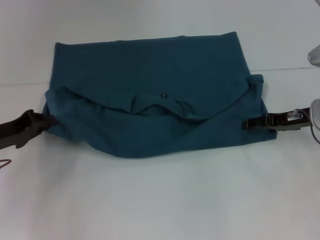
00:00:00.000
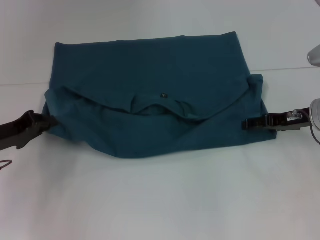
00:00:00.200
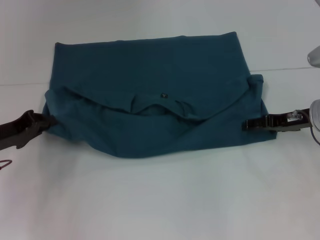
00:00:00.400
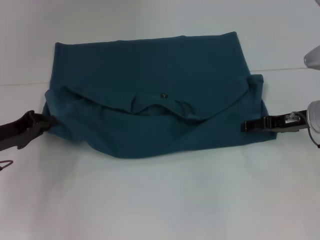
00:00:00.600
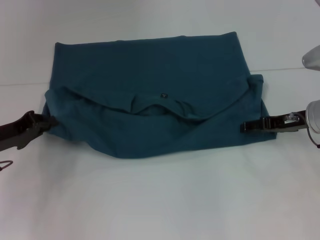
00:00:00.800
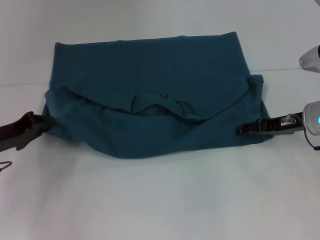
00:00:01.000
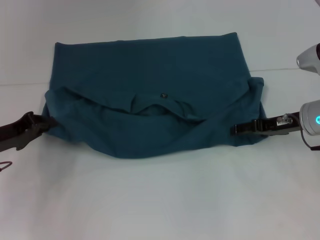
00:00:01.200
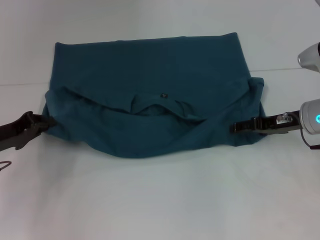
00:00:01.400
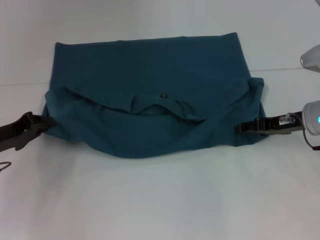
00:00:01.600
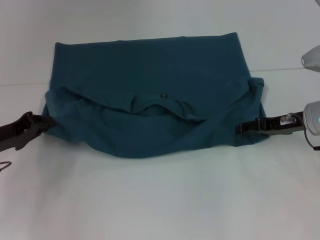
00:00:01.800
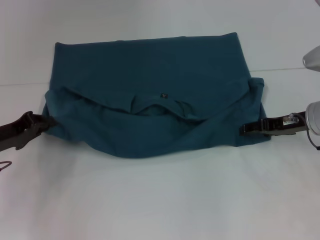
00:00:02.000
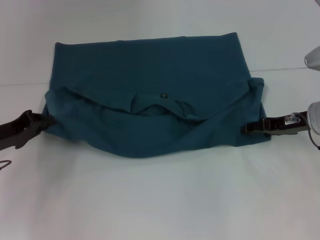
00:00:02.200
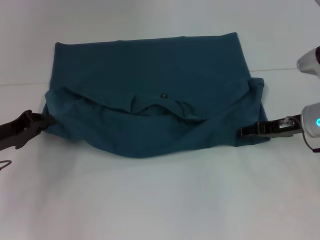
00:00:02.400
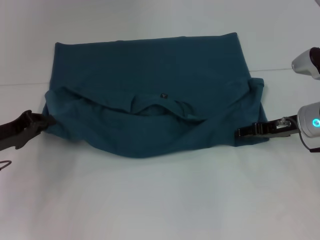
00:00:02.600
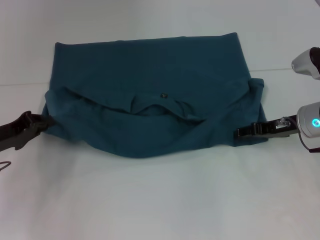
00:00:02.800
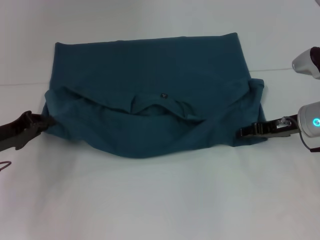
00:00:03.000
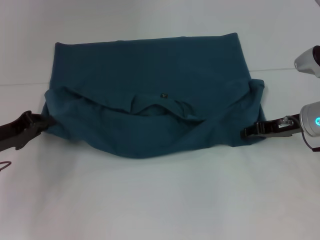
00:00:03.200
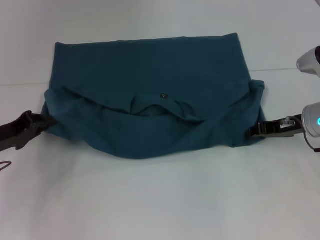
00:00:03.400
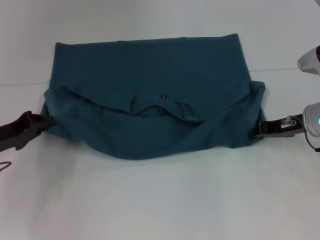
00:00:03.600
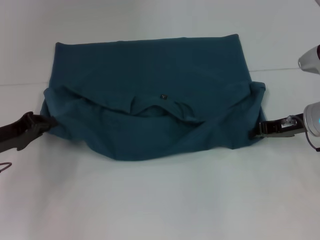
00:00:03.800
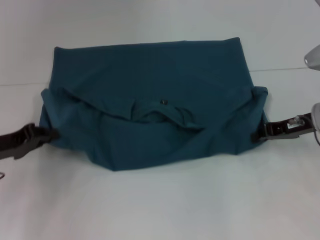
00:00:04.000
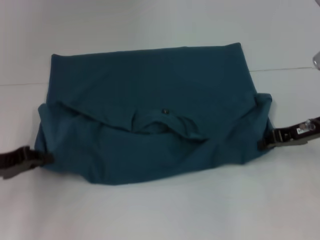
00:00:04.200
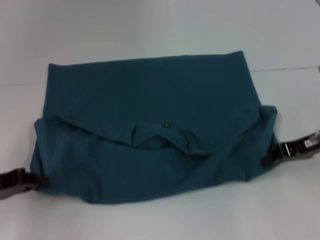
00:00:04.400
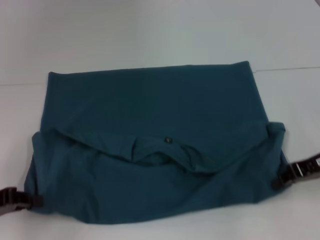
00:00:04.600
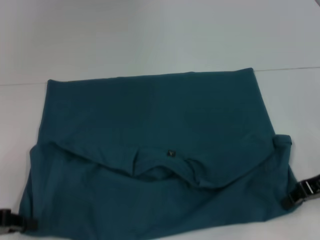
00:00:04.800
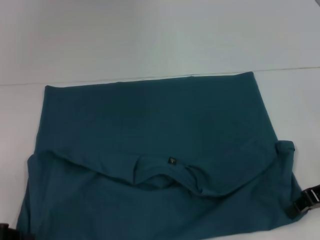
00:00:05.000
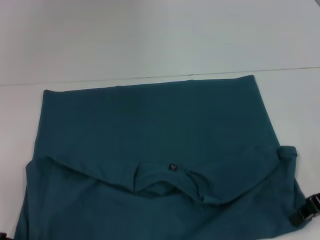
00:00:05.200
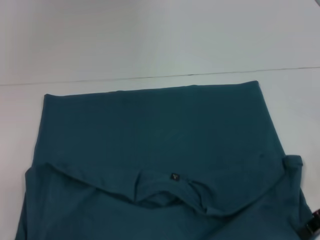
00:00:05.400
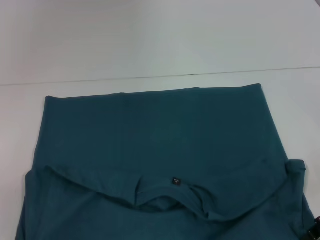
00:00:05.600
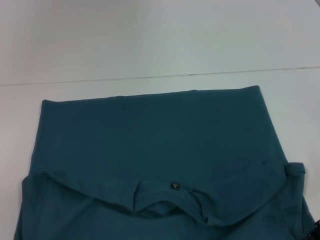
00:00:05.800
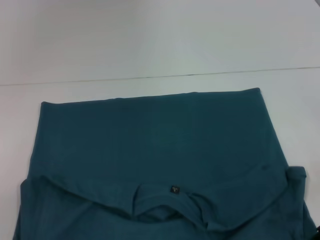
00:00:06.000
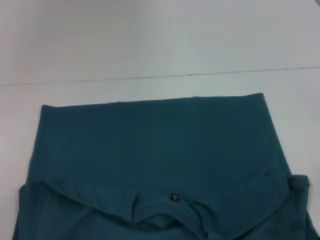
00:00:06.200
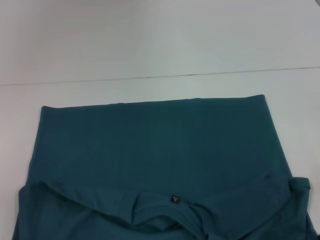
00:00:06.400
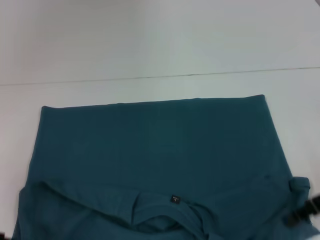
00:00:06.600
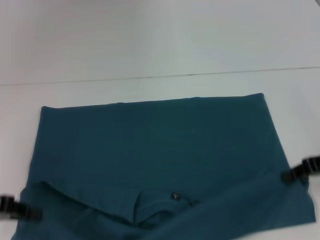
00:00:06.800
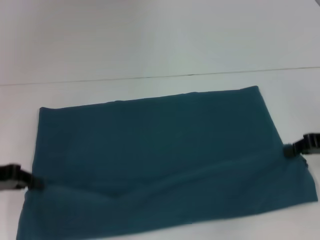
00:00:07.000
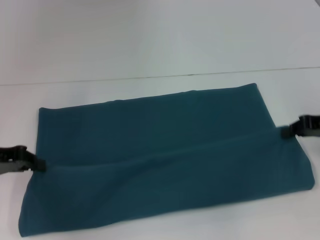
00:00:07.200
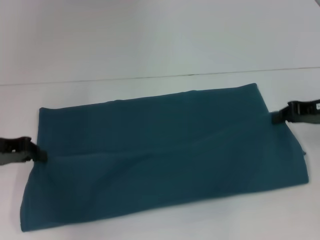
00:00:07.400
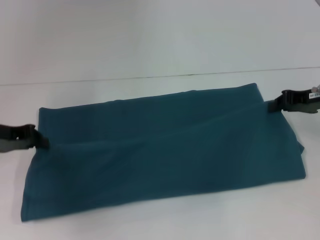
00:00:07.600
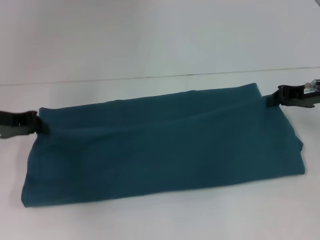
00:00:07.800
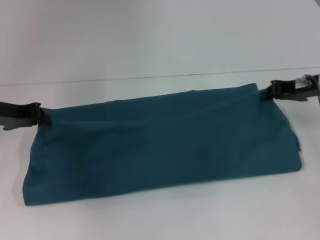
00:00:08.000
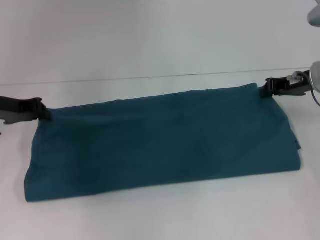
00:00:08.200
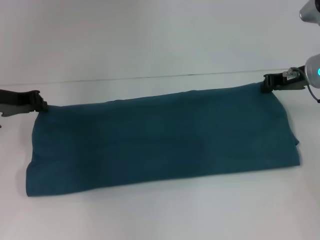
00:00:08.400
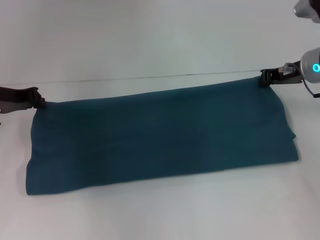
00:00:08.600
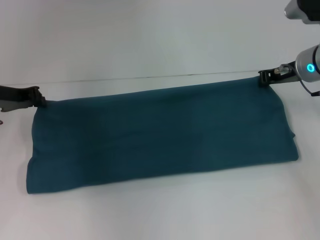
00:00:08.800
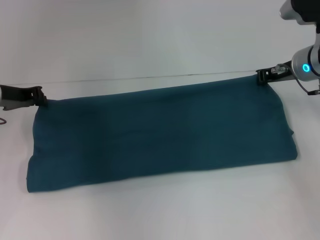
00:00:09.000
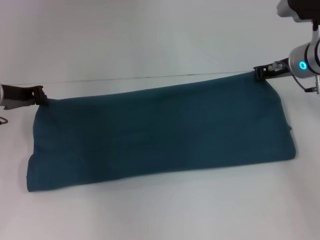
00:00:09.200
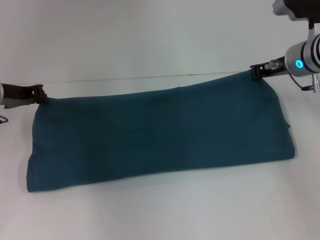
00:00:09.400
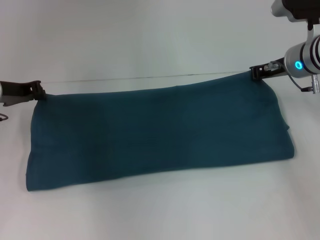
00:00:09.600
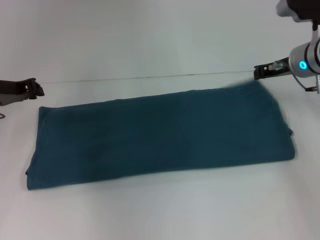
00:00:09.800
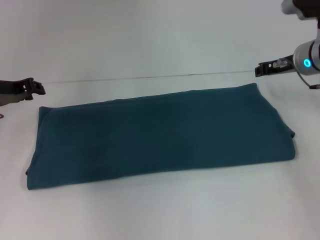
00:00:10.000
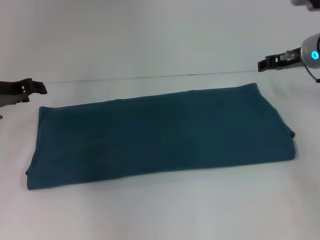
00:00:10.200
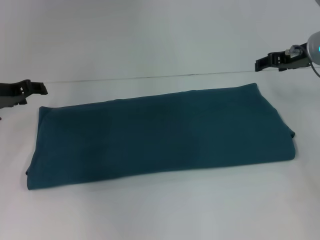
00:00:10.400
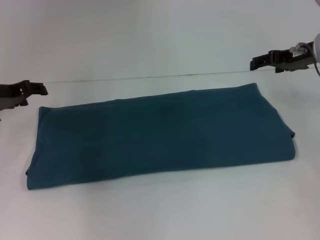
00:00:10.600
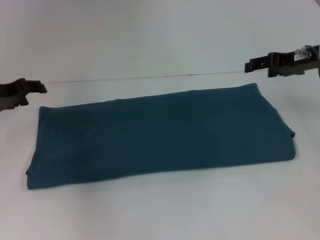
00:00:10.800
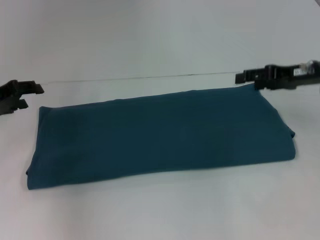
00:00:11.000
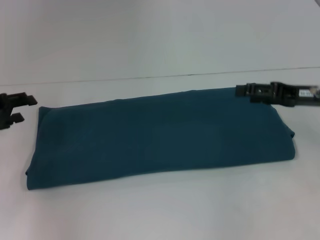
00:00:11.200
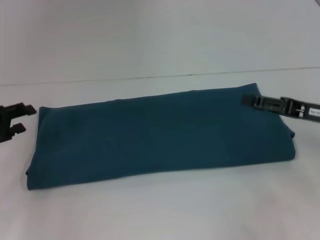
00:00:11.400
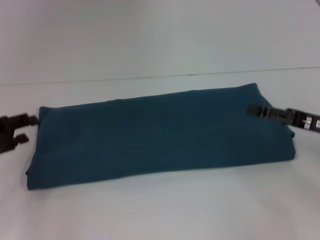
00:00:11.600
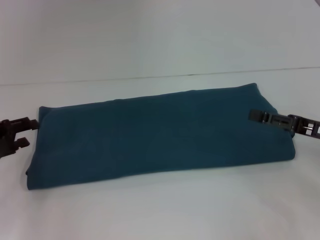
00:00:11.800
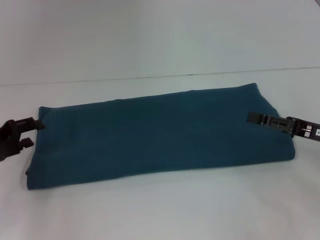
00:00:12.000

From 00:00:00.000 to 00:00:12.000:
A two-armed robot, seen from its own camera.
Step, from 00:00:00.000 to 00:00:06.200: Pull the clothes with your left hand.
Step, from 00:00:00.000 to 00:00:06.200: Pull the clothes with your right hand.
Step, from 00:00:06.400 to 00:00:10.200: Fold the clothes to the right.
From 00:00:00.000 to 00:00:01.600: The grippers make only small movements.
From 00:00:01.600 to 00:00:03.000: Neither gripper changes place.
From 00:00:03.000 to 00:00:04.400: The left gripper changes place by about 5 cm, while the right gripper moves about 5 cm, and closes its fingers.
From 00:00:04.400 to 00:00:06.000: The two grippers go about 5 cm backward.
From 00:00:06.000 to 00:00:07.600: The grippers both shift forward by some 15 cm.
From 00:00:07.600 to 00:00:09.000: The right gripper travels forward and to the left by some 10 cm. Meanwhile the left gripper goes roughly 5 cm forward.
From 00:00:09.000 to 00:00:10.400: The left gripper opens; the right gripper opens.
From 00:00:10.400 to 00:00:12.000: The left gripper heads backward and downward, covering some 10 cm. Meanwhile the right gripper travels backward and downward by some 20 cm.

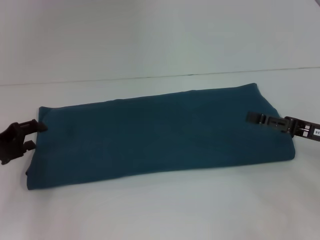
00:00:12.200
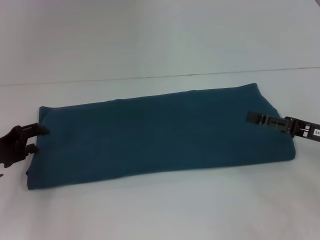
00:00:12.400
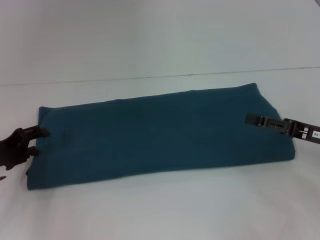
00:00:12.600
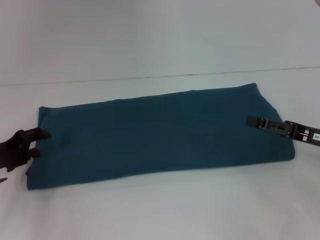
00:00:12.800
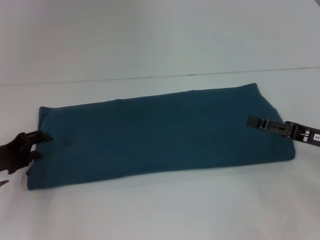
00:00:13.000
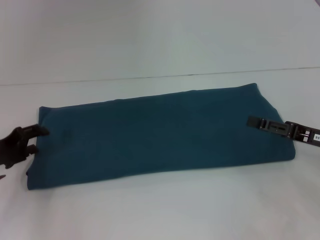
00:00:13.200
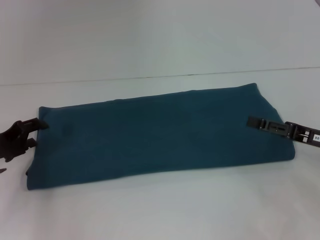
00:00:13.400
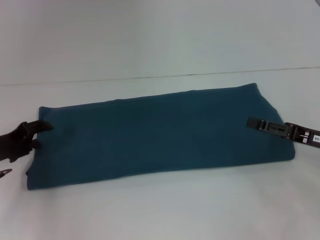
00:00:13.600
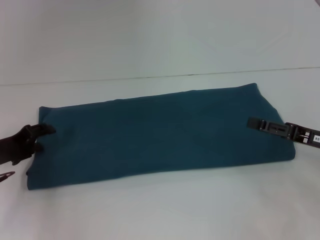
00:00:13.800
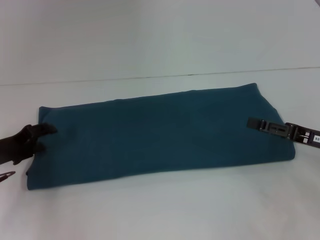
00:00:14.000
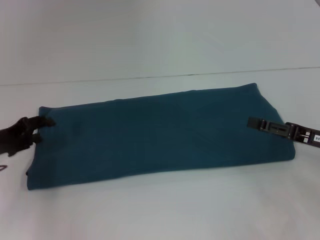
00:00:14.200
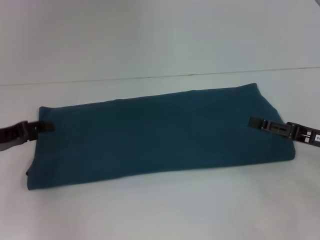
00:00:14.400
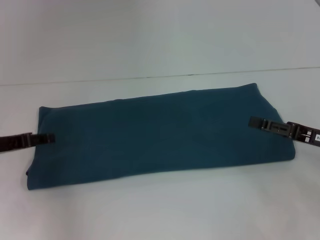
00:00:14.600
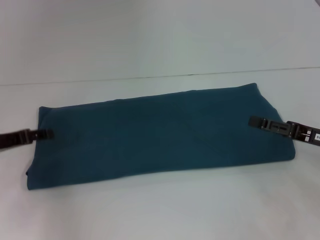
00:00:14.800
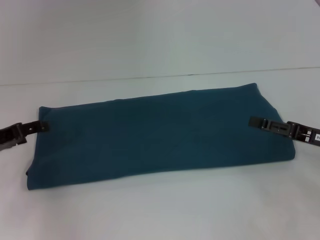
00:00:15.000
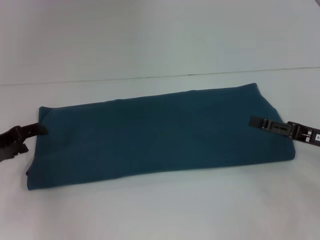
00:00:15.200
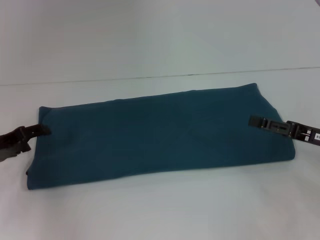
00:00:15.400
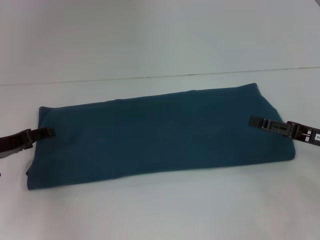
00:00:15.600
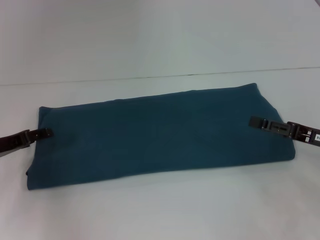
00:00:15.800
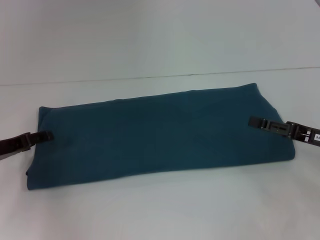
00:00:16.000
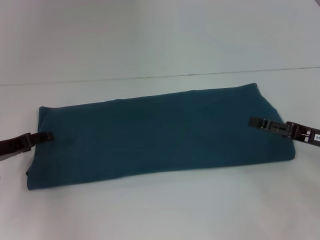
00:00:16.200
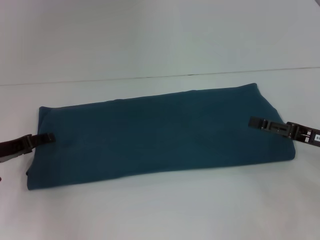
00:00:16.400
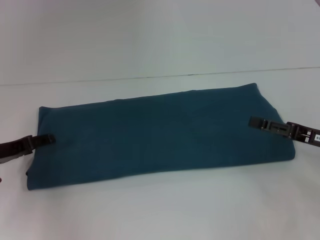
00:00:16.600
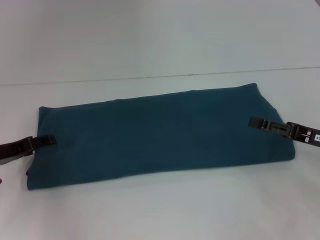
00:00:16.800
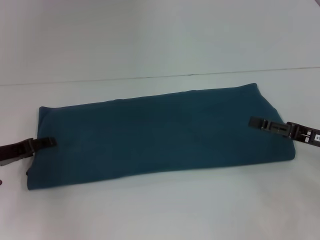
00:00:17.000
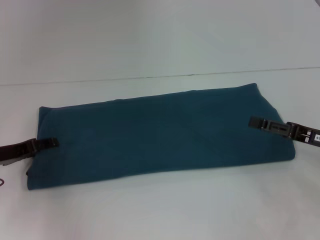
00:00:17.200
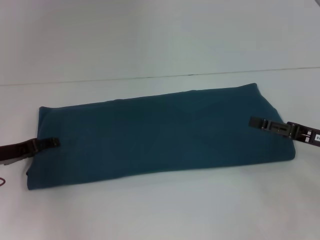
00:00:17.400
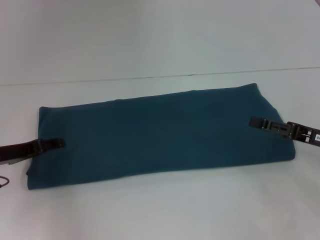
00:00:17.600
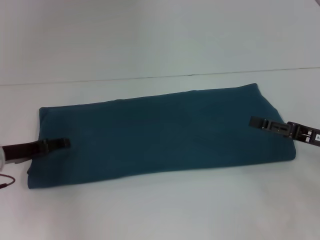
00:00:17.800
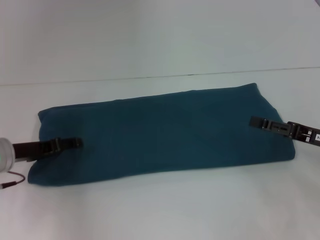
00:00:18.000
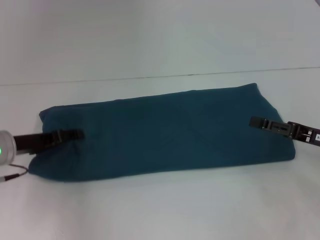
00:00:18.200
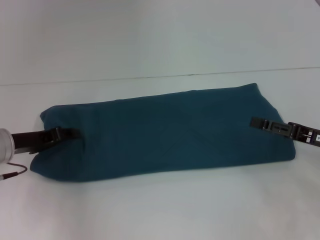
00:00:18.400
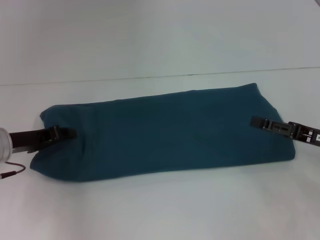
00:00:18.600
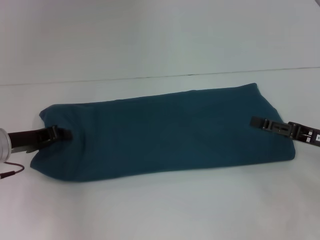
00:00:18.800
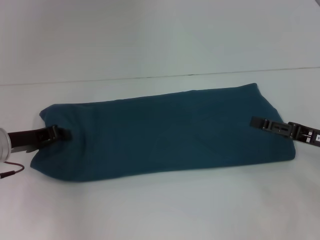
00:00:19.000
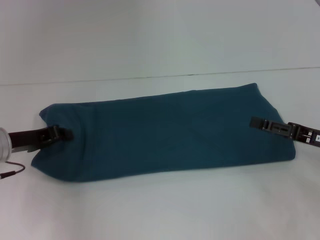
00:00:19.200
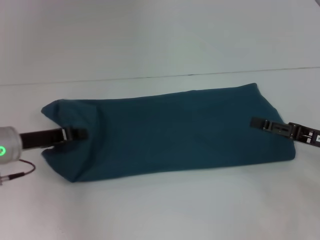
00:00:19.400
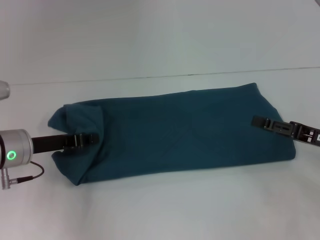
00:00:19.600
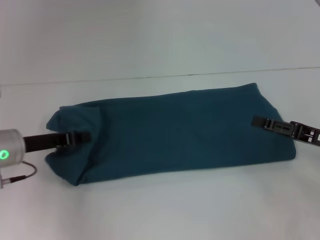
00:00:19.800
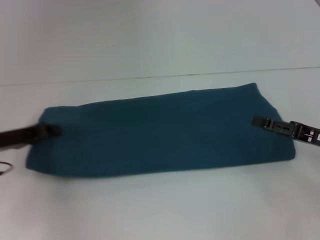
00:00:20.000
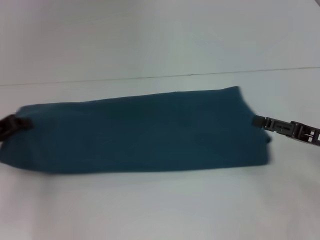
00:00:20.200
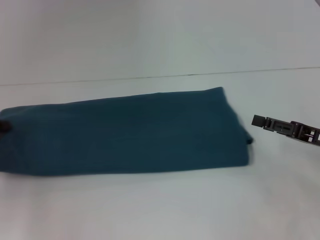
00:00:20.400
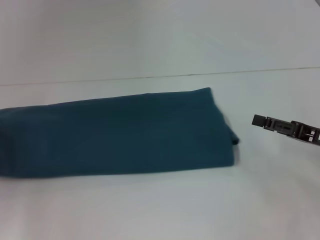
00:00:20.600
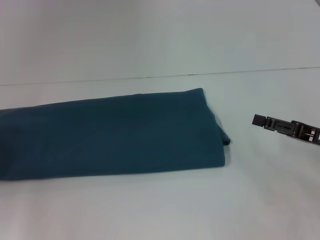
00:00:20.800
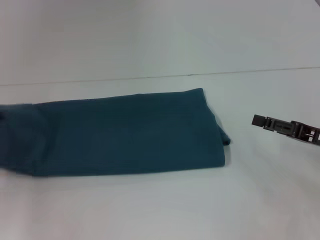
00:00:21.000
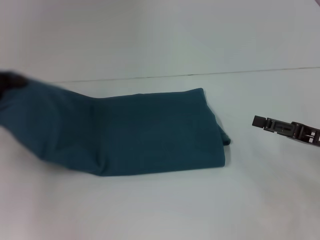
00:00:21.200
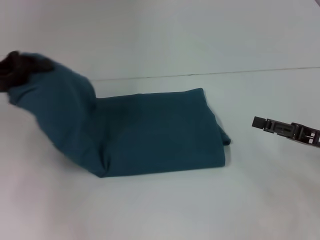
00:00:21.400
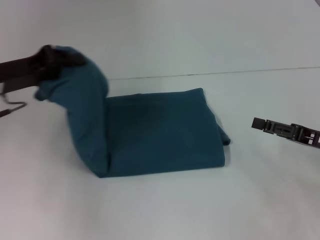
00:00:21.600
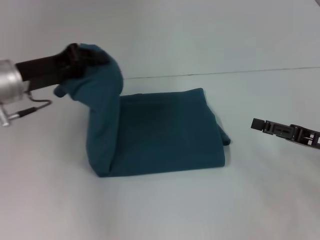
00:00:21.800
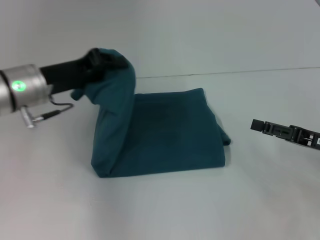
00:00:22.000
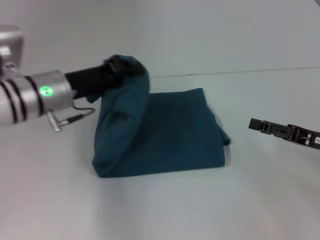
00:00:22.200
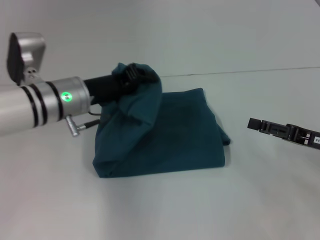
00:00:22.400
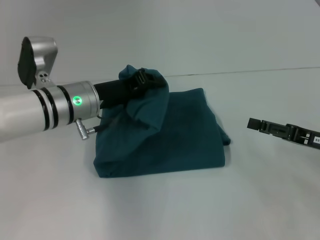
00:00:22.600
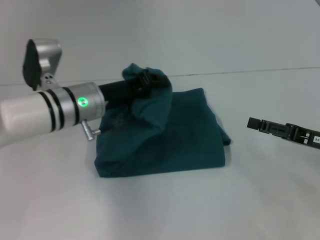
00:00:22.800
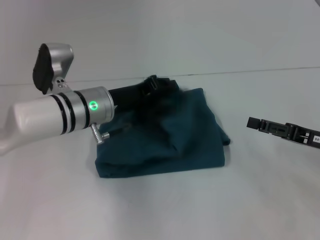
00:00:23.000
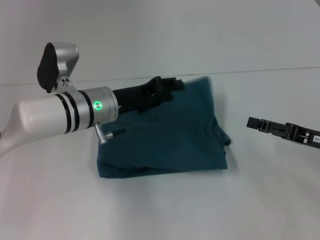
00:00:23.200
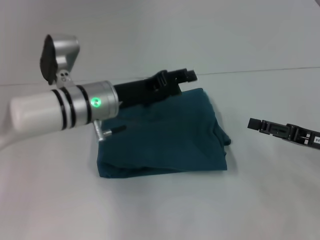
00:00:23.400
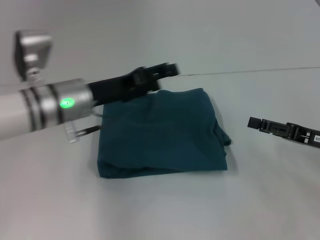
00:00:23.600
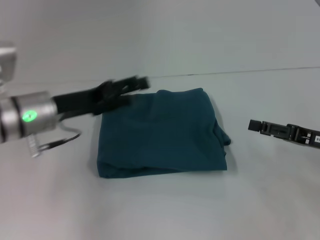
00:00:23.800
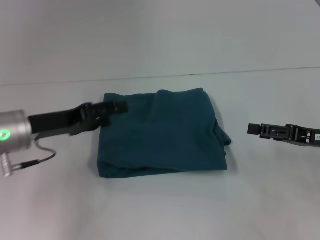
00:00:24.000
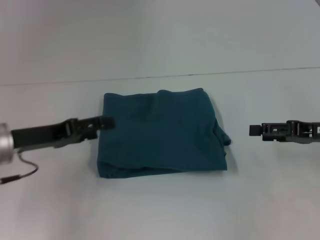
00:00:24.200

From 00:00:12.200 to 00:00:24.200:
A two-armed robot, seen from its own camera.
Step, from 00:00:12.200 to 00:00:23.400: Fold the clothes to the left.
From 00:00:12.200 to 00:00:13.800: The grippers stay close to where they were, moving slightly.
From 00:00:15.200 to 00:00:18.200: The grippers make only small movements.
From 00:00:18.200 to 00:00:19.800: The left gripper closes its fingers.
From 00:00:19.800 to 00:00:21.200: The left gripper goes approximately 10 cm to the left and upward.
From 00:00:21.200 to 00:00:22.600: The left gripper heads to the right, covering some 20 cm.
From 00:00:22.600 to 00:00:24.200: The left gripper heads to the left and backward, covering roughly 15 cm, and opens.
